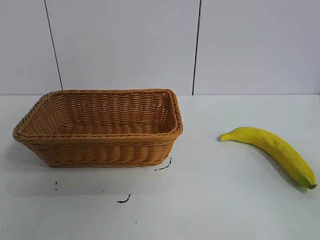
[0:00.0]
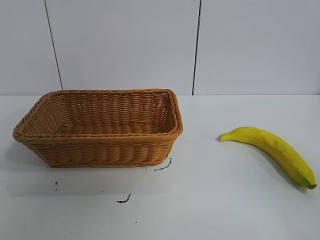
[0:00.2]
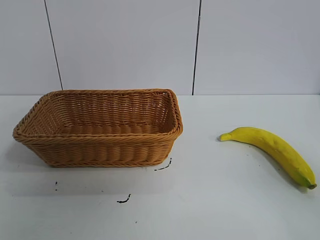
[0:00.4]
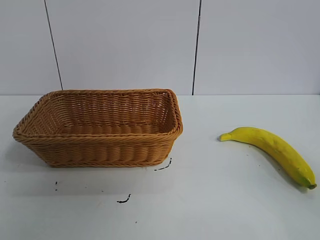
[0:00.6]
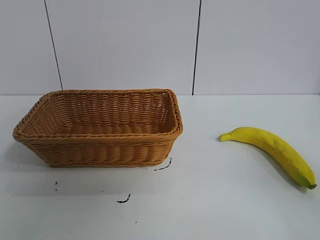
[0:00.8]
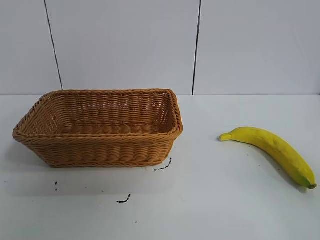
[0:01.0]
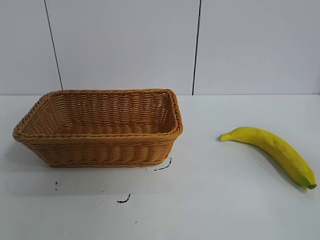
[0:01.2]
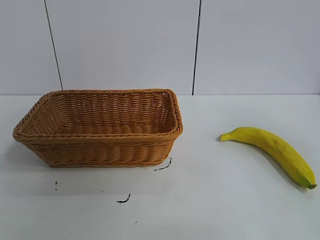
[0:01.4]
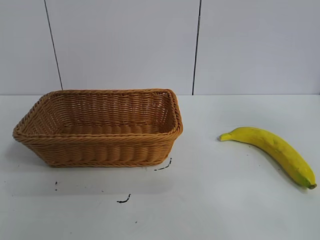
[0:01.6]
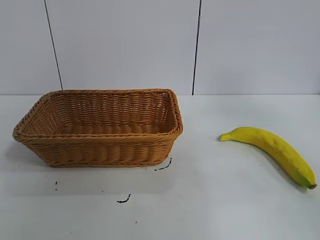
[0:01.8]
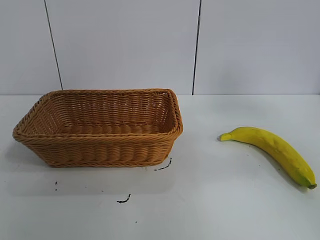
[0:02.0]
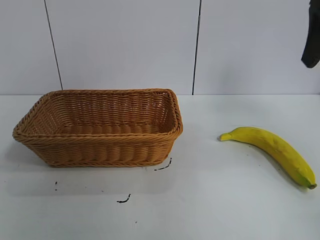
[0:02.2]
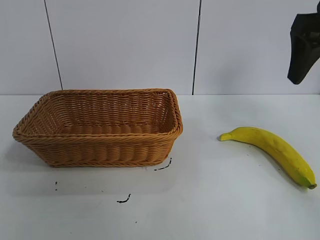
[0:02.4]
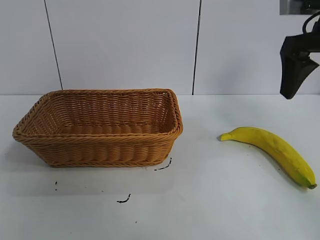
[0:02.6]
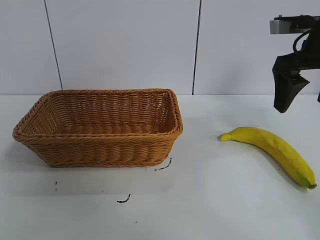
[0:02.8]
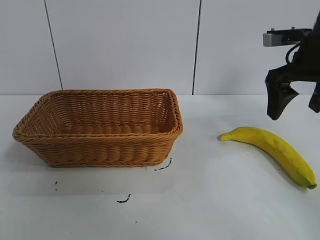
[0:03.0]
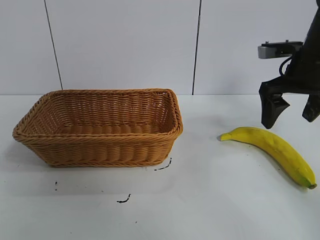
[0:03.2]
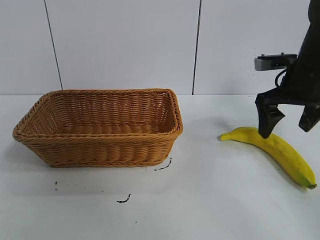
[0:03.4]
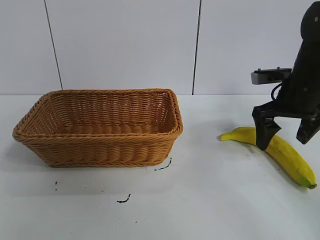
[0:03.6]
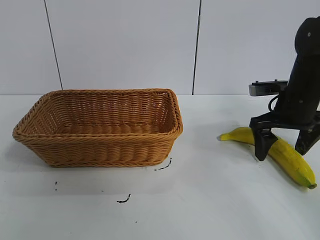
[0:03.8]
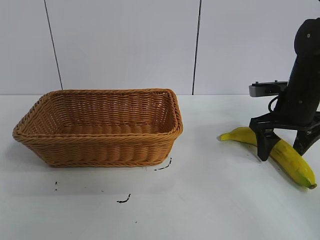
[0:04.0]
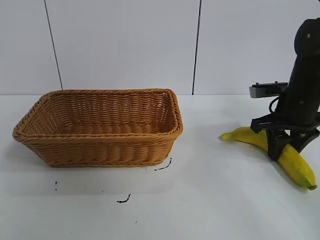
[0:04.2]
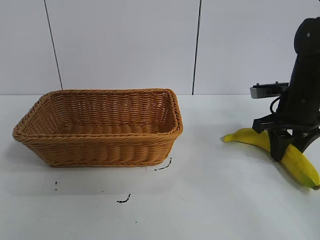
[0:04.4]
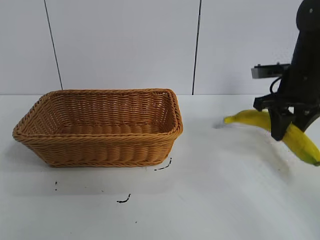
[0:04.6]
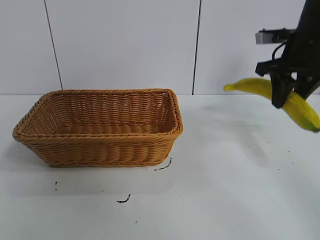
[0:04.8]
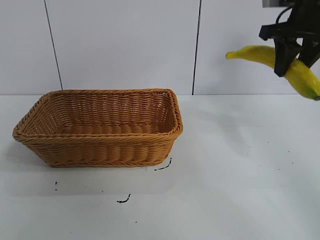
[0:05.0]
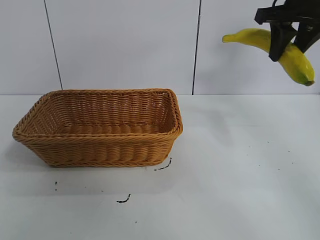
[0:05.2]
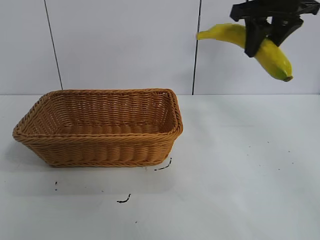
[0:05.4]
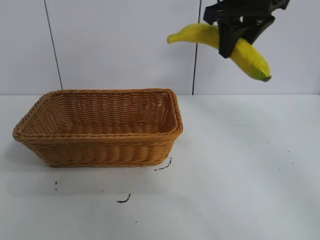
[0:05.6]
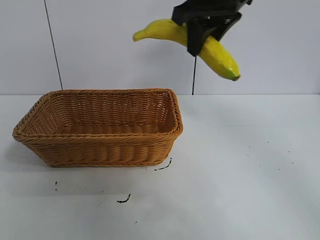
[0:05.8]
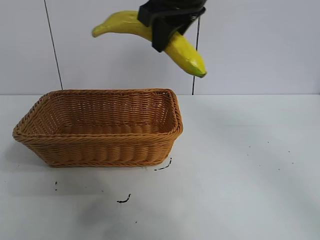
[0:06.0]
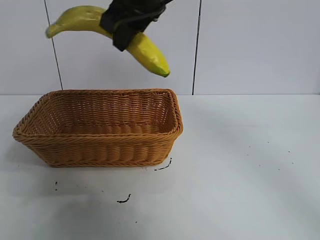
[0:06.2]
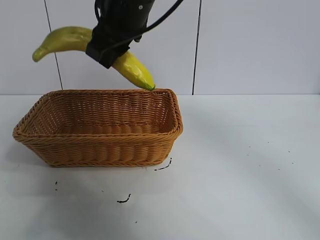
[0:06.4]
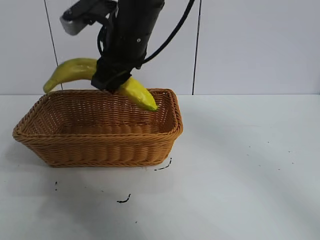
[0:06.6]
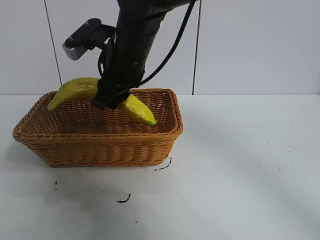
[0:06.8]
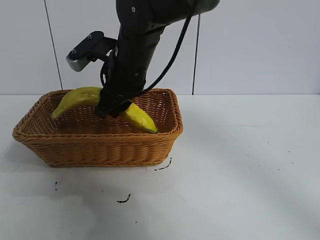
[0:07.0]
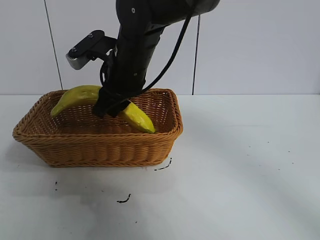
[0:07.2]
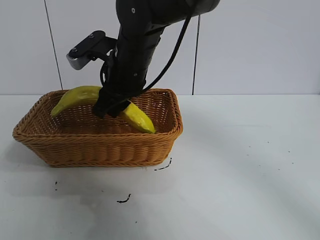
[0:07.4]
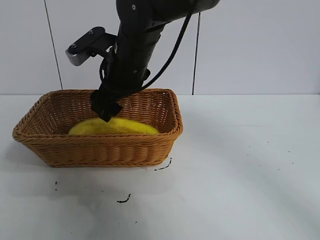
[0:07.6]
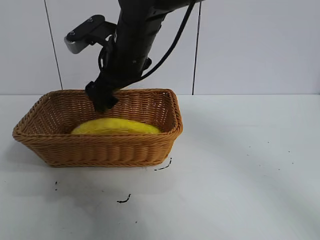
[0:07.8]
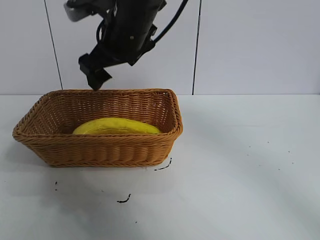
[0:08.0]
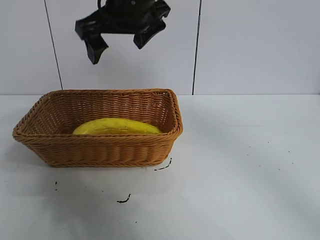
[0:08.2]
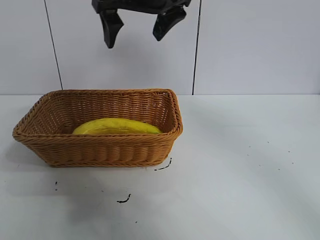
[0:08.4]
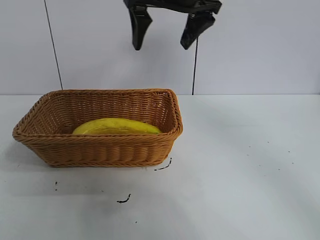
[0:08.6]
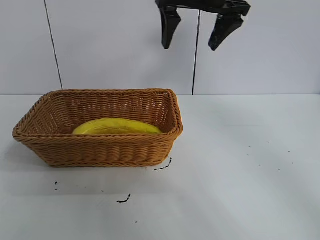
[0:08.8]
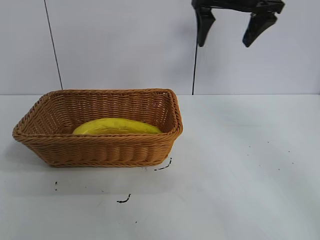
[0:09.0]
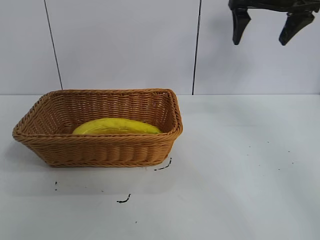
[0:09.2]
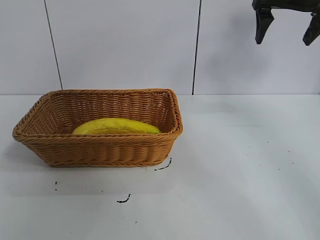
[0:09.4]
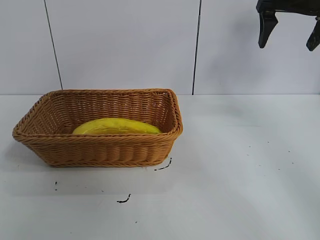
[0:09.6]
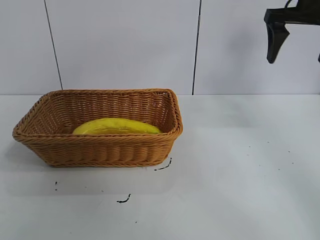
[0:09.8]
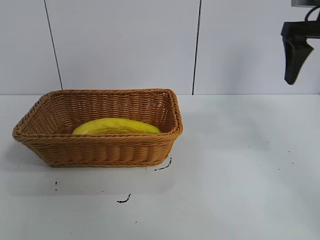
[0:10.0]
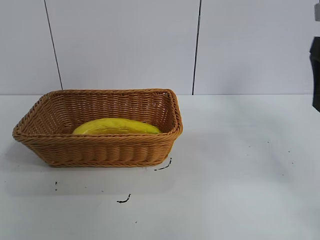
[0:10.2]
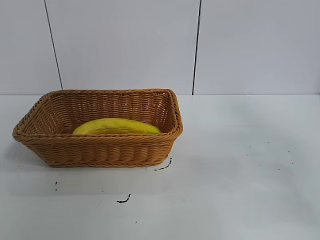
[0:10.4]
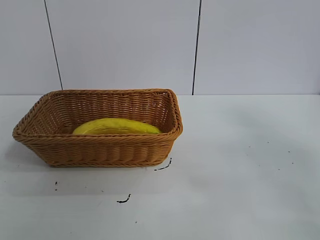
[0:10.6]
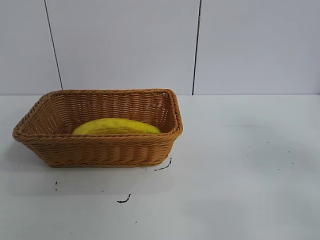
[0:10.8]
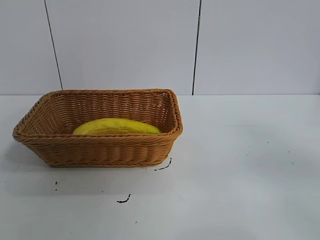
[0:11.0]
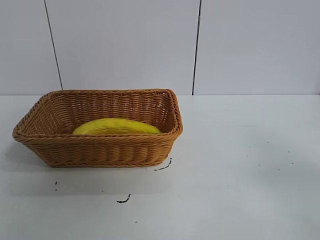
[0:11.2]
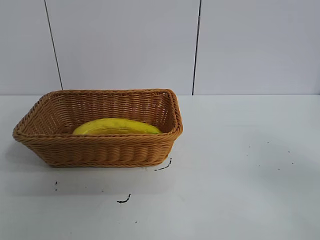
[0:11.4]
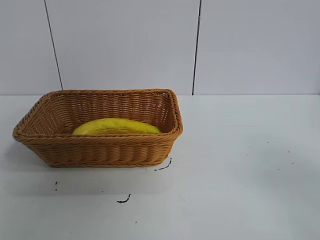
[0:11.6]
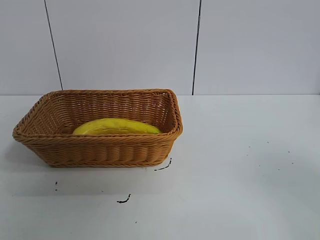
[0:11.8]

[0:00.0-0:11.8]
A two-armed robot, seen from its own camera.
Task of the whole recording: pick up the banana and put it into the basket.
Step, 0:02.2 to 0:04.4: Grasp the banana with right gripper.
Step, 0:04.8 to 0:07.6: Place the banana in the basket with right gripper.
